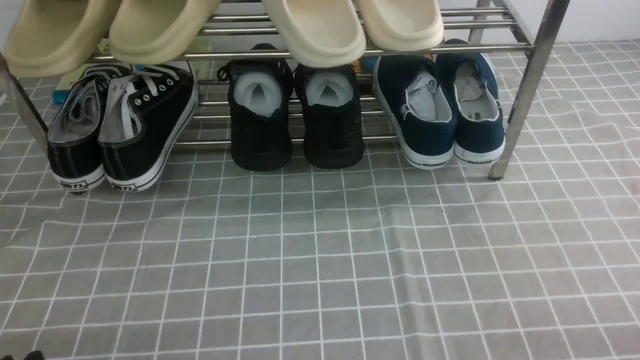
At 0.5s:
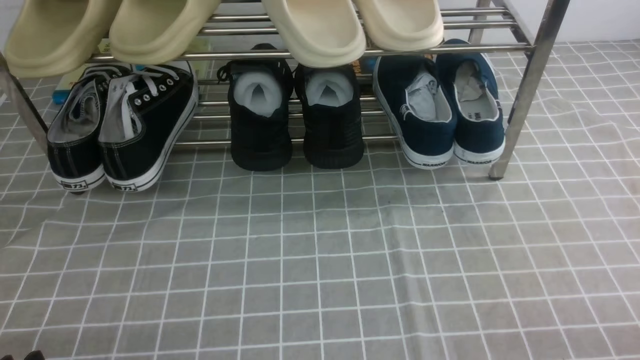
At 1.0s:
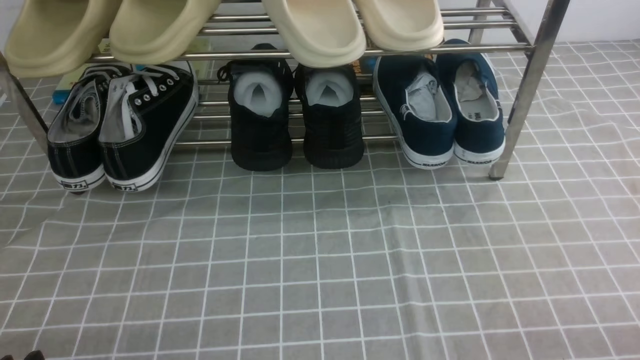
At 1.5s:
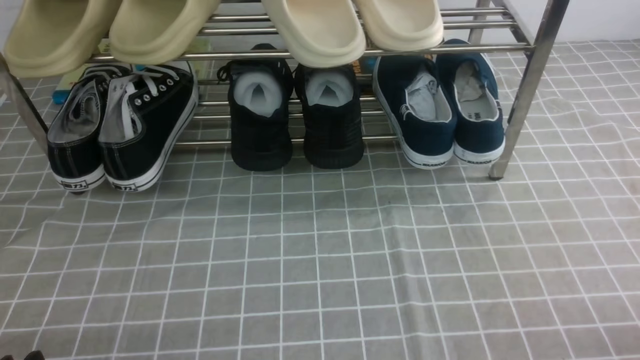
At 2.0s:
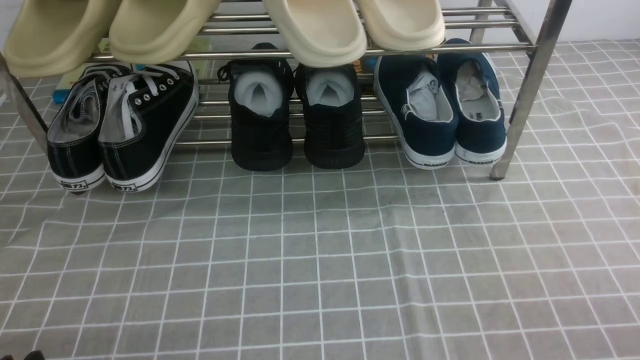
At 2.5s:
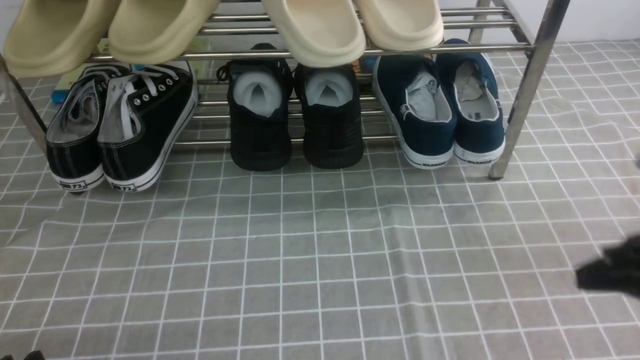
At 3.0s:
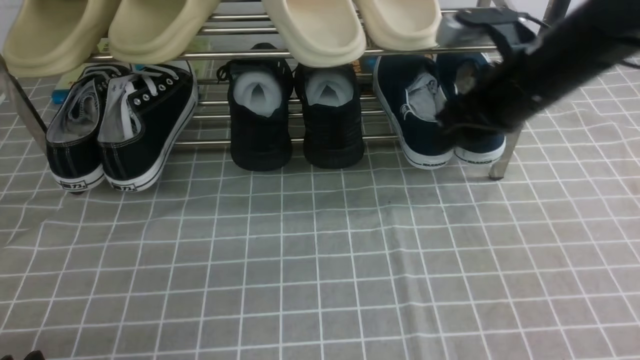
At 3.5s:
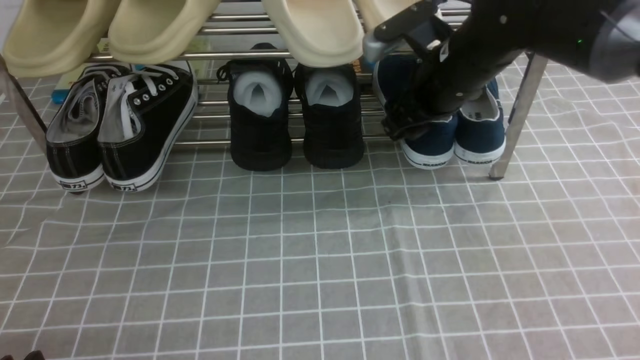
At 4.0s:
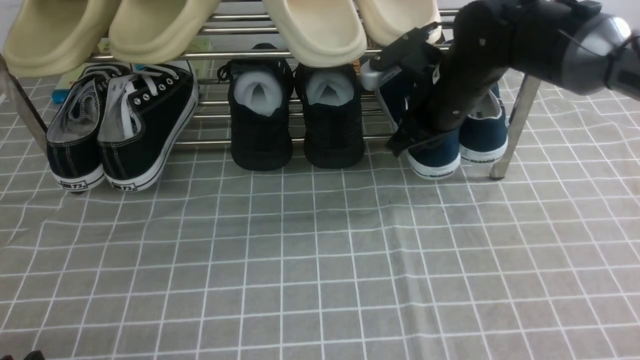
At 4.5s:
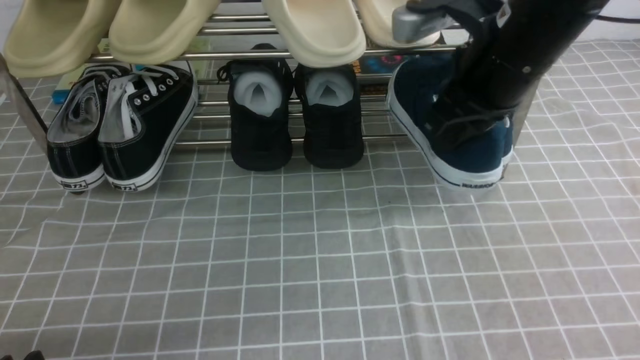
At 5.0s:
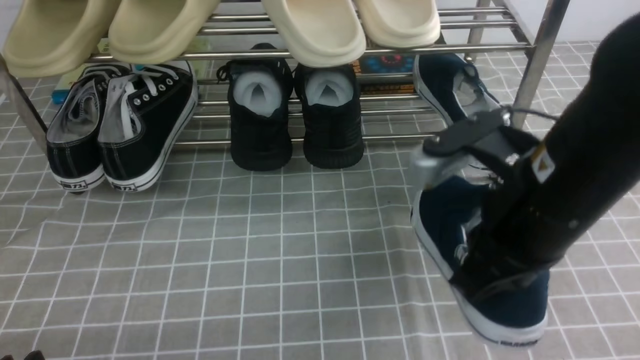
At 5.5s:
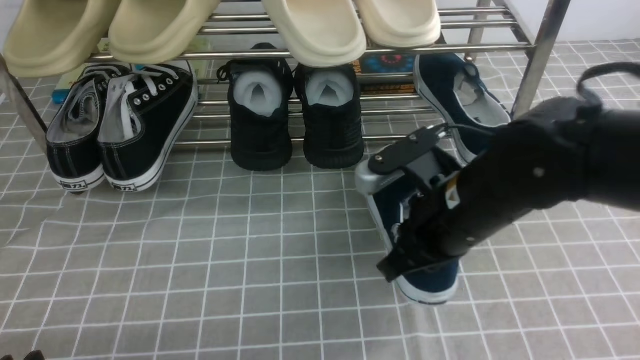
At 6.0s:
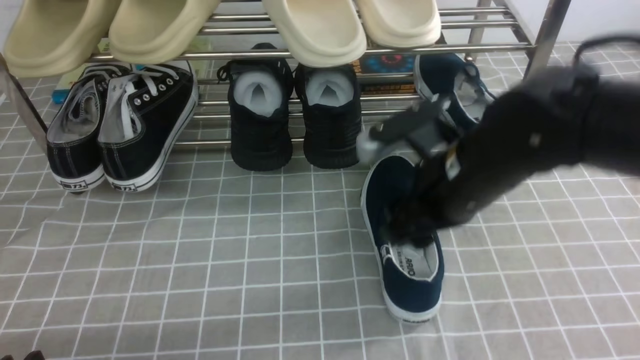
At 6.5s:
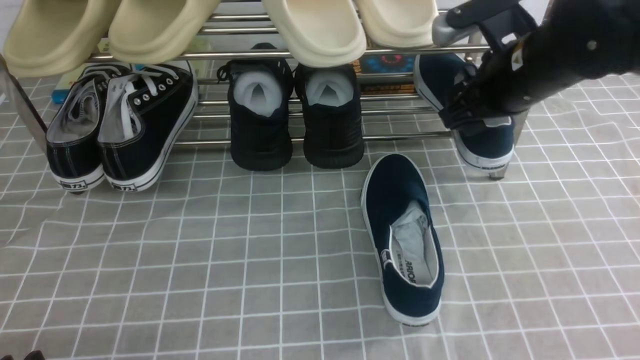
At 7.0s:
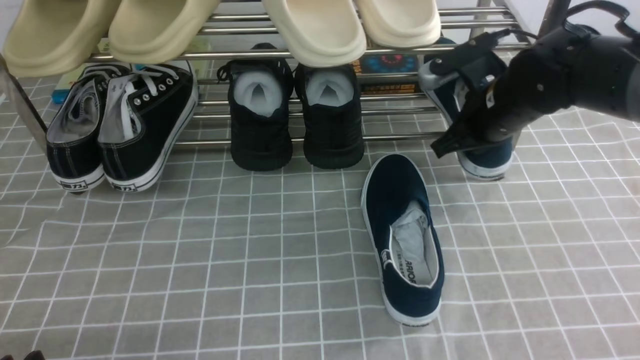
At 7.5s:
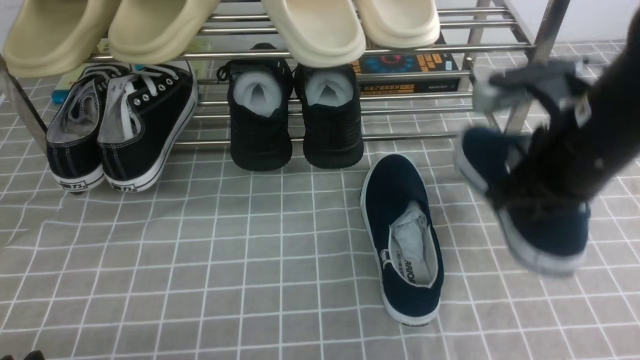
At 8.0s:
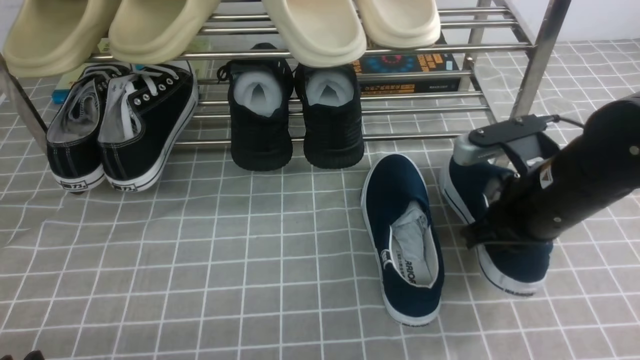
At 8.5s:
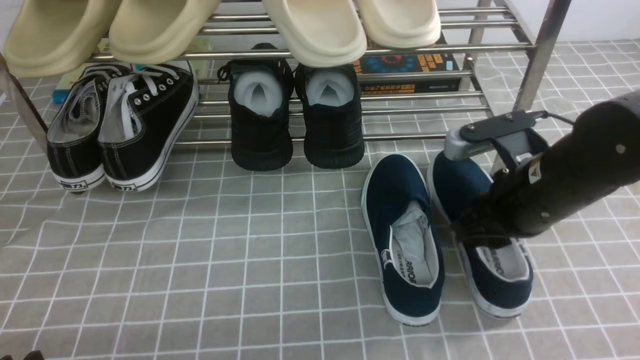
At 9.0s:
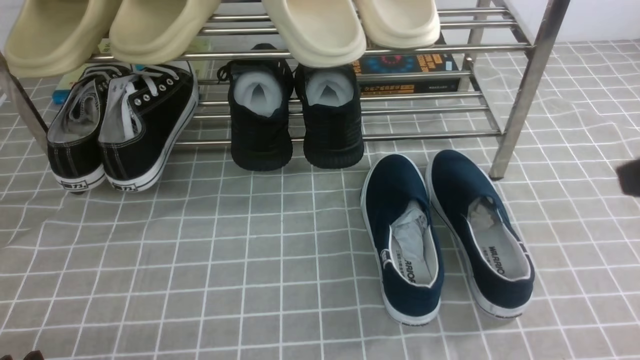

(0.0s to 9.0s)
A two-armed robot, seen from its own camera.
Step, 0.0s - 4.0s: use the right arm to clamp a shoe on the right side of the shoe rack.
Step, 4.5s - 6.0s: use the right arm to take out the clamped shoe from the shoe rack and put it down.
Step, 6.5s - 7.0s: use the right arm to clamp a shoe on the right side of the shoe rack.
Step, 7.5s - 8.5s: use the right arm to take out the clamped shoe from the shoe rack and put it down.
0.0s - 2.0s: The right gripper shifts roughly 5 cm upward.
2.0s - 4.5s: The right gripper goes approximately 35 cm forward, to the left and upward, and opens, then closes once more.
4.5s - 7.0s: The right gripper shifts about 10 cm downward and forward, and opens and closes again.
7.0s - 9.0s: The right gripper heads backward and upward, covering about 25 cm.

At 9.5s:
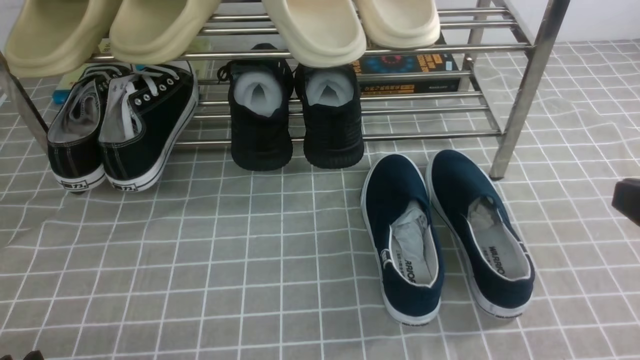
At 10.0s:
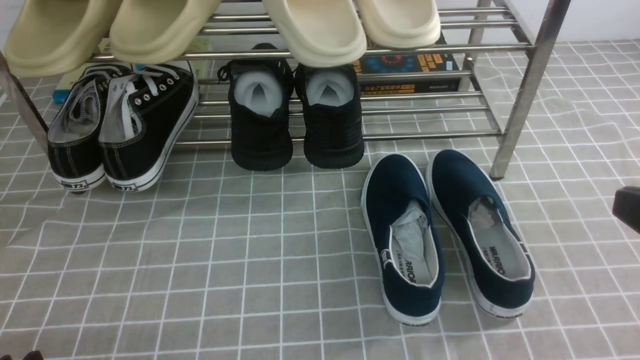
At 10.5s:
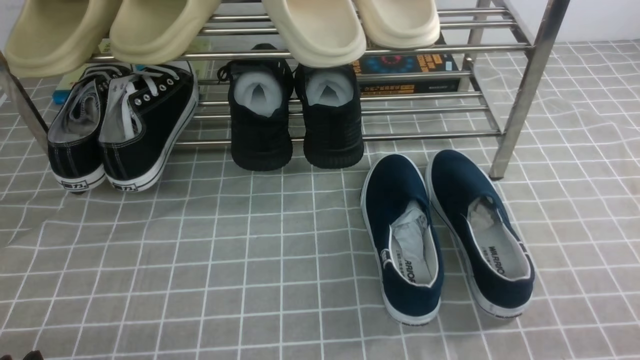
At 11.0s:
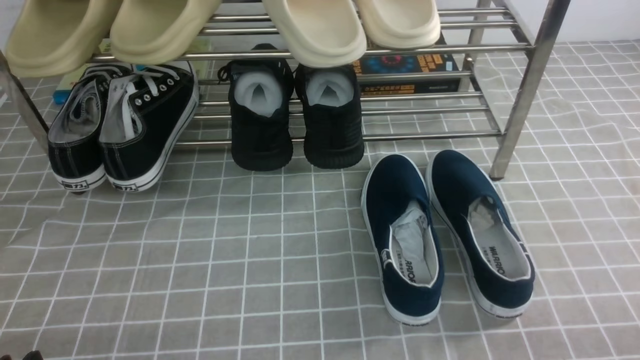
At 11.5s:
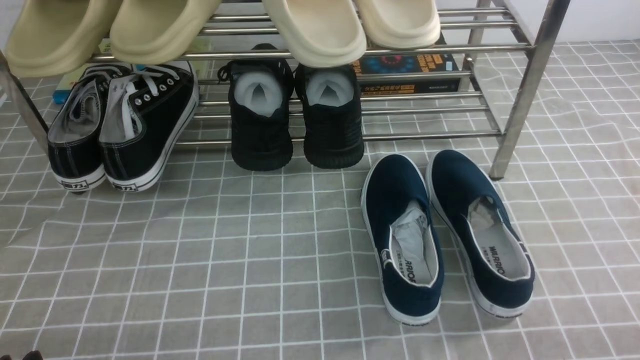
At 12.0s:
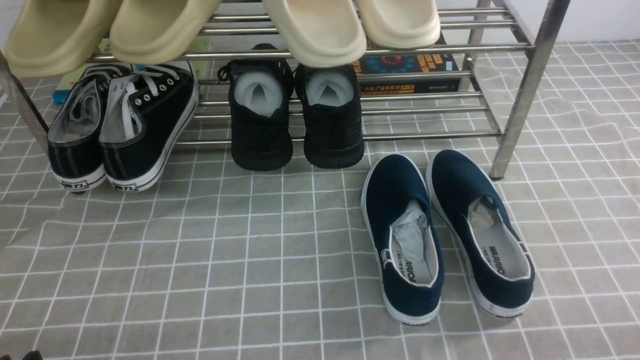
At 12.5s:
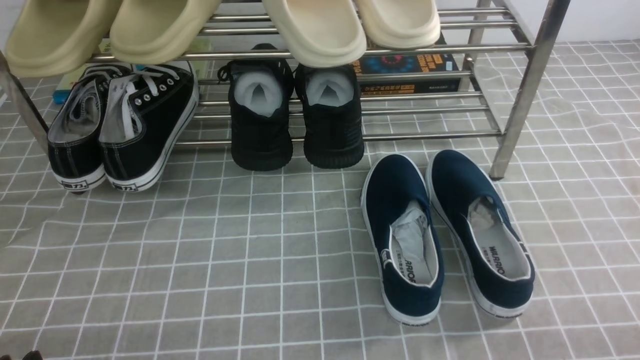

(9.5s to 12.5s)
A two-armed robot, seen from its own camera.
11.0s - 12.5s: The two grippers keep their place.

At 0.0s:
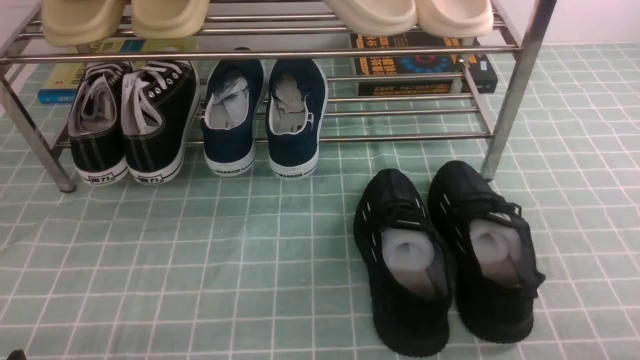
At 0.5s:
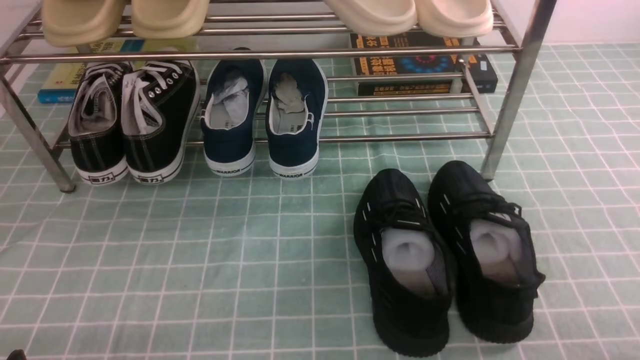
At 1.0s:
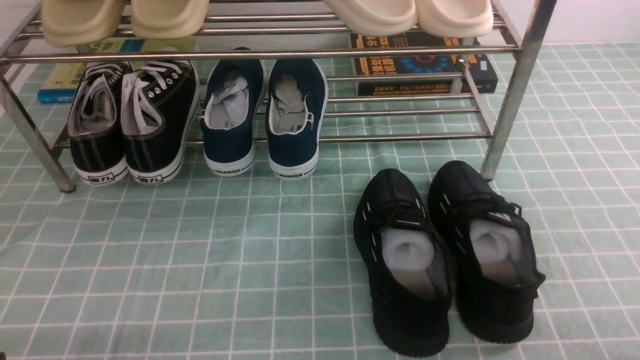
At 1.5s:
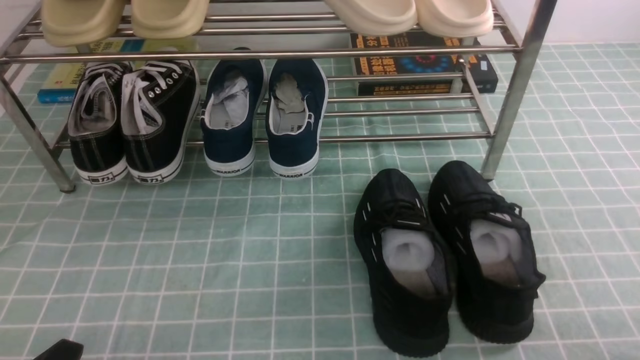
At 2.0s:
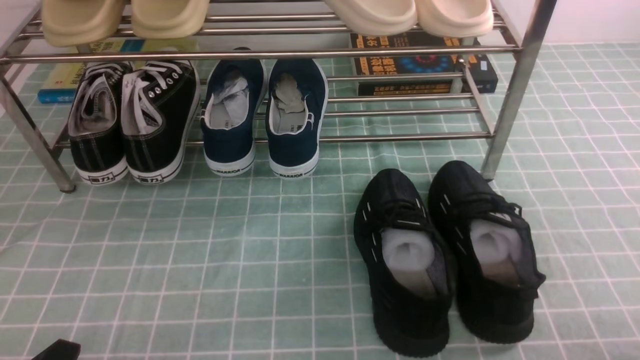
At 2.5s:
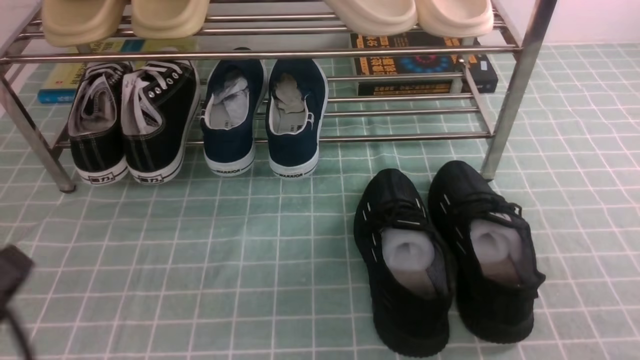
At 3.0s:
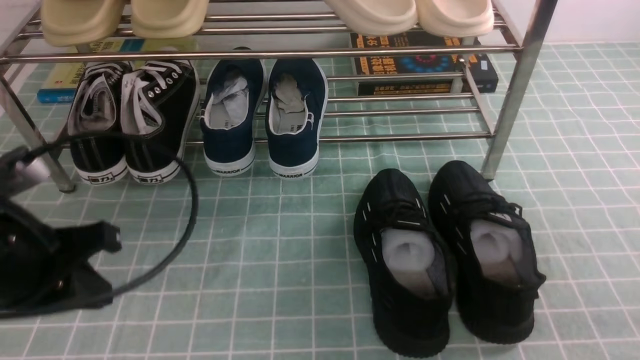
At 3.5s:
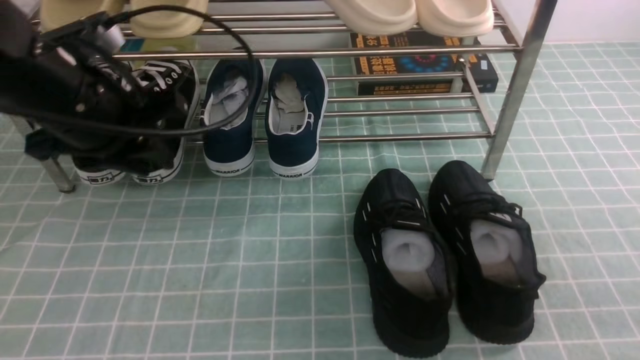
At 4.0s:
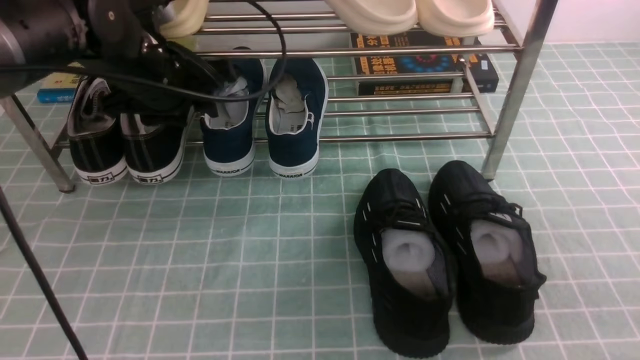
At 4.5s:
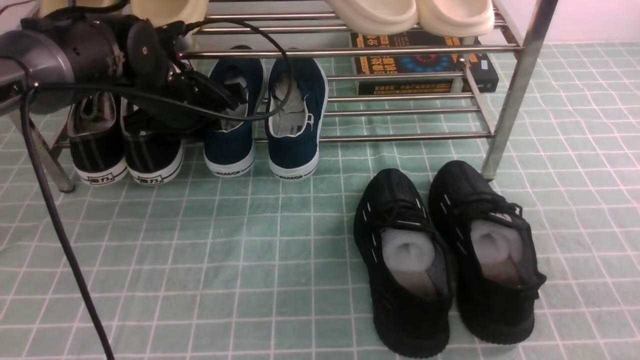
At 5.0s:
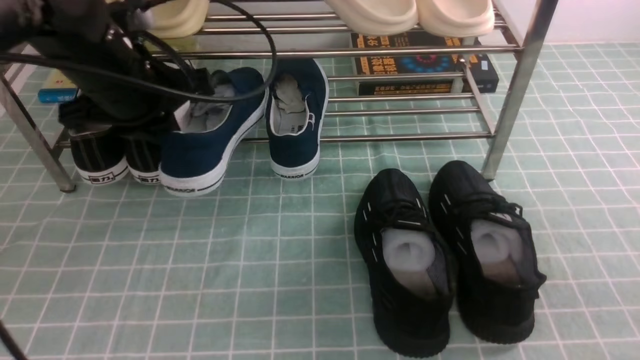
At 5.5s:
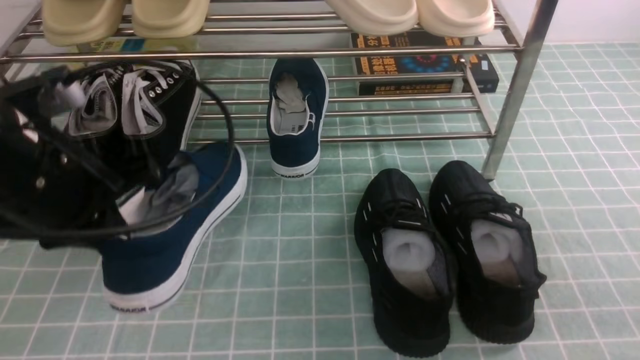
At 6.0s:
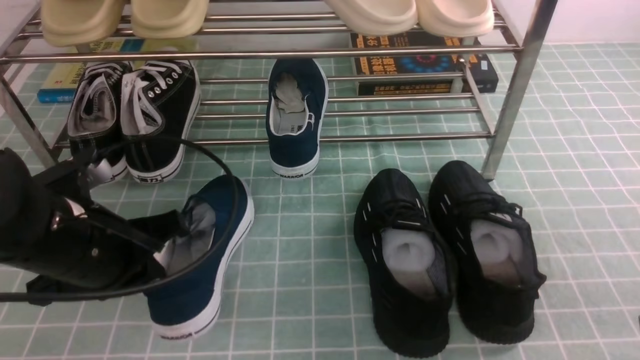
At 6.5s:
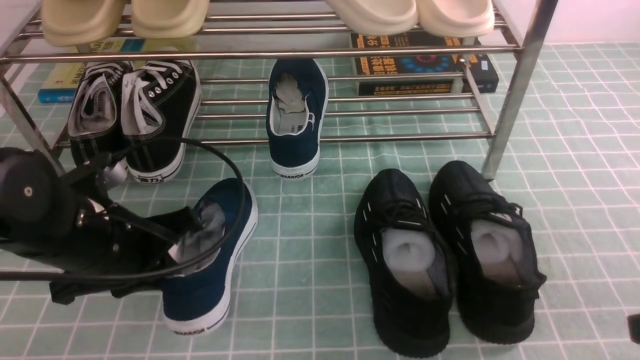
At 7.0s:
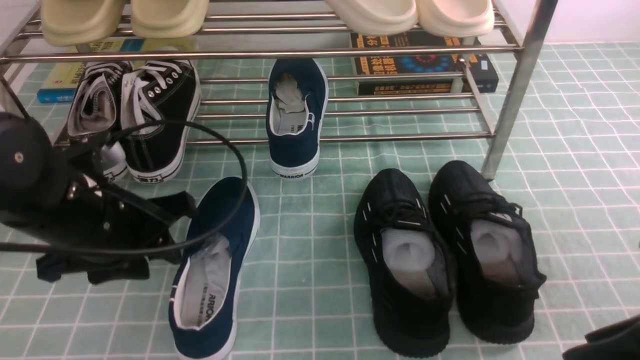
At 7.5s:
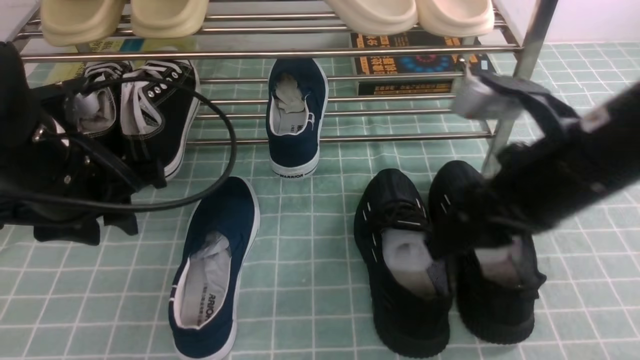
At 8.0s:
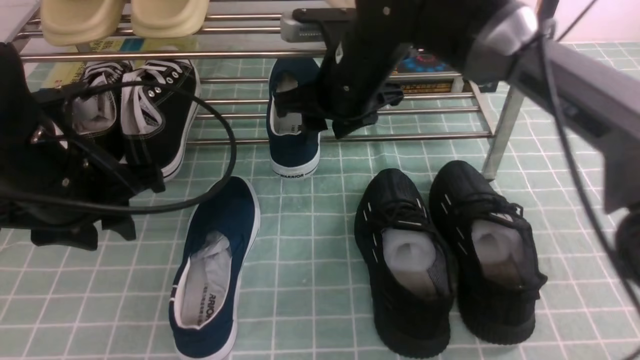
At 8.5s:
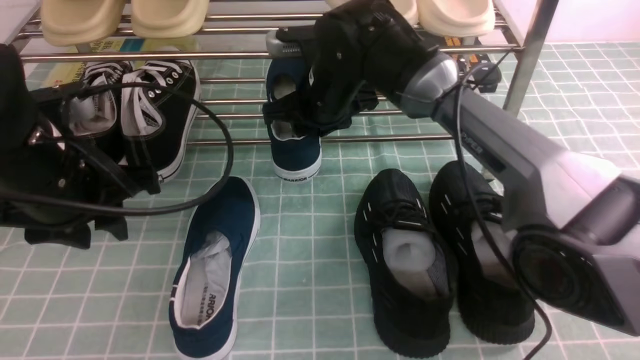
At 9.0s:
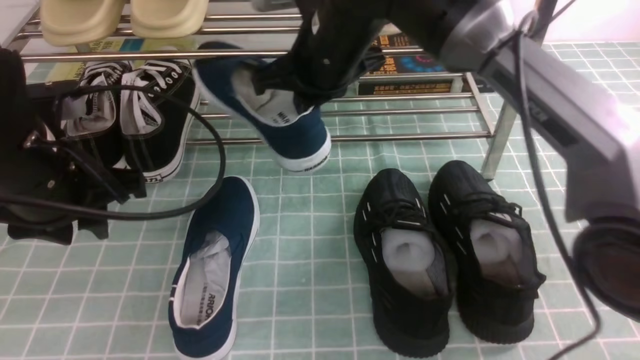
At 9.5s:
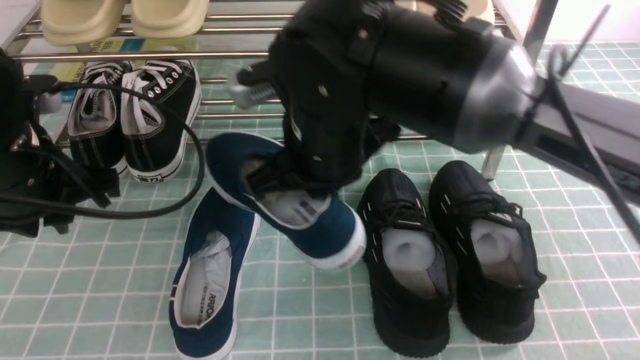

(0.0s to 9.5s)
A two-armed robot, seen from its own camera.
Step, 0.0s - 4.5s: use the left arm to clamp a shoe in the middle of the shoe rack.
Step, 5.0s - 6.5s: Use your left arm to remove the clamped shoe from the shoe rack and put it down.
Step, 7.0s - 8.5s: use the right arm to clamp a shoe in the middle of the shoe rack.
2.0s - 4.0s: The left gripper travels forward by about 35 cm, and opens up. The right gripper shifts some 10 cm upward and forward, and closes.
4.0s - 5.5s: The left gripper travels backward by roughly 15 cm, and closes its fingers.
5.5s - 7.5s: The left gripper reaches some 10 cm downward, then returns, and opens its fingers. The right gripper travels to the left, forward and upward by some 20 cm, and opens up.
7.5s - 9.5s: The left gripper closes up; the right gripper shifts approximately 15 cm to the left, moves some 20 cm forward and comes back, and closes up.
